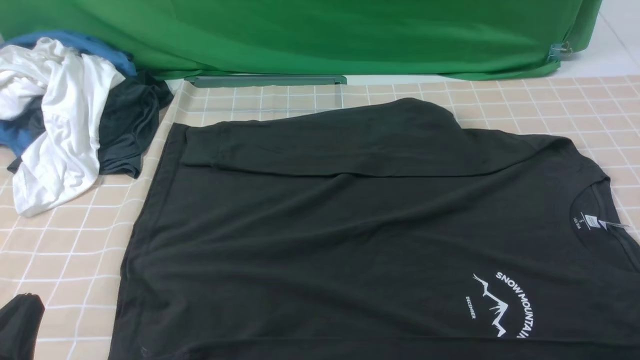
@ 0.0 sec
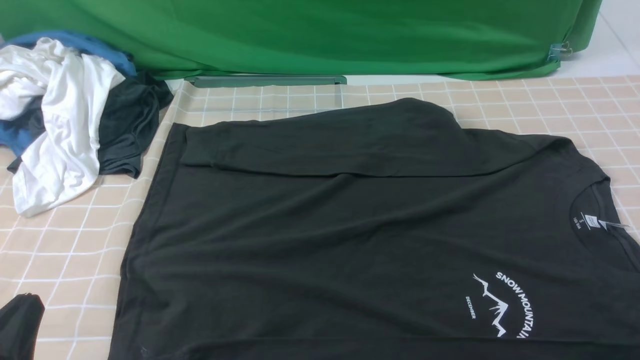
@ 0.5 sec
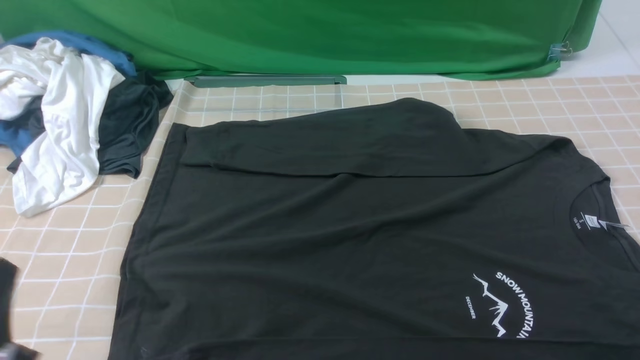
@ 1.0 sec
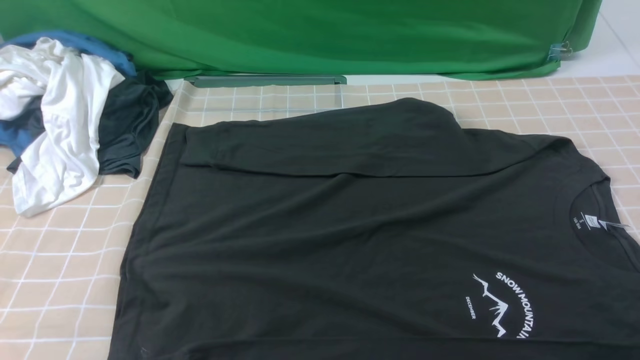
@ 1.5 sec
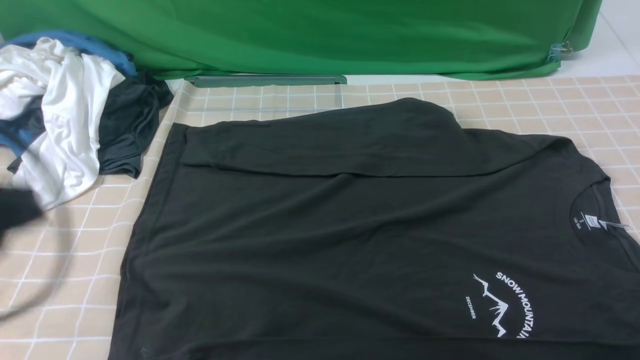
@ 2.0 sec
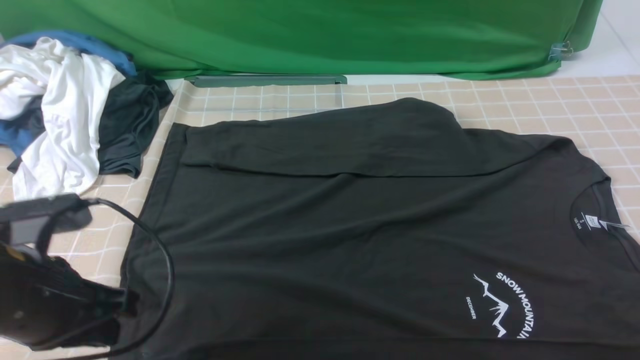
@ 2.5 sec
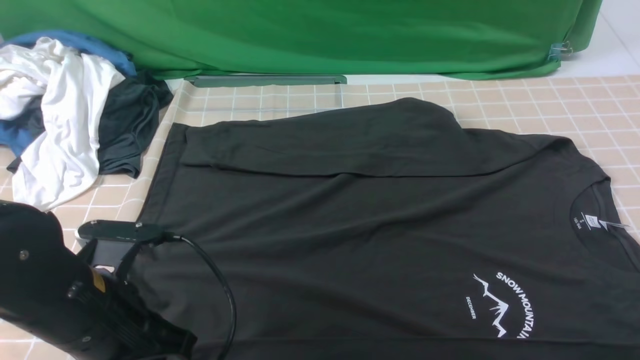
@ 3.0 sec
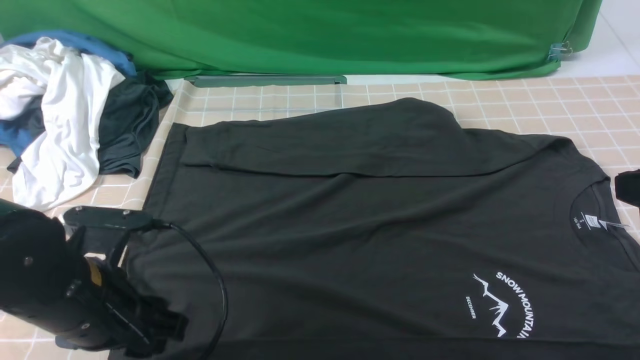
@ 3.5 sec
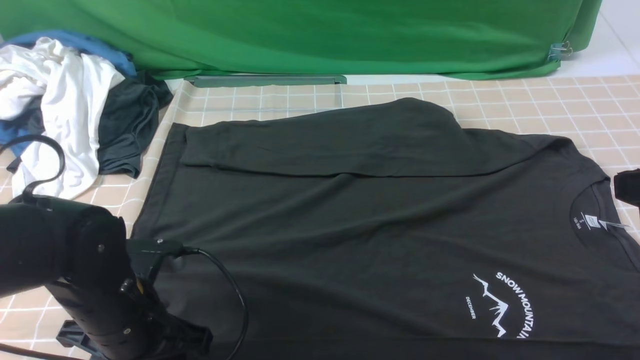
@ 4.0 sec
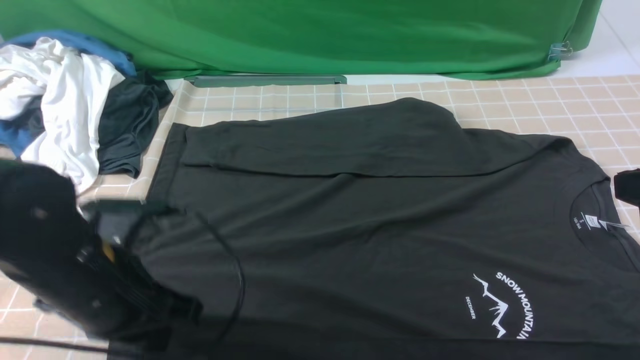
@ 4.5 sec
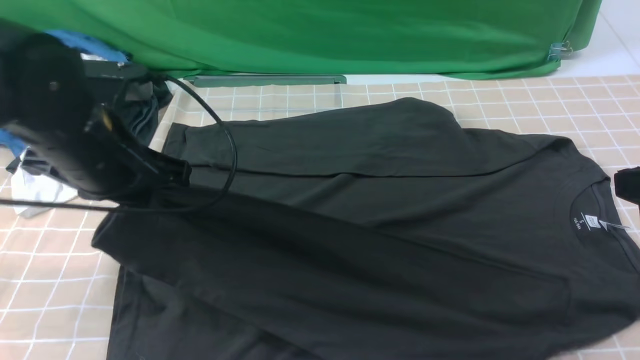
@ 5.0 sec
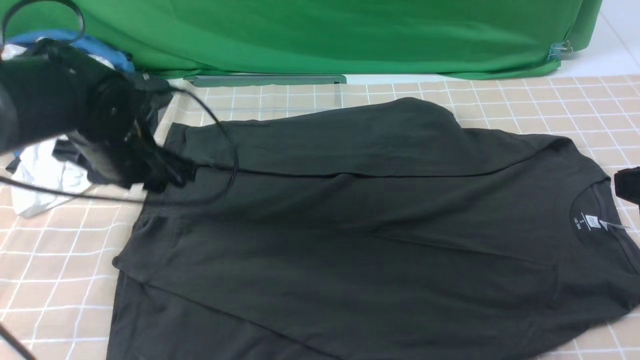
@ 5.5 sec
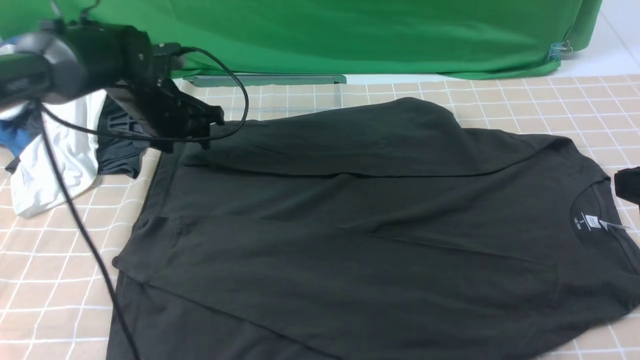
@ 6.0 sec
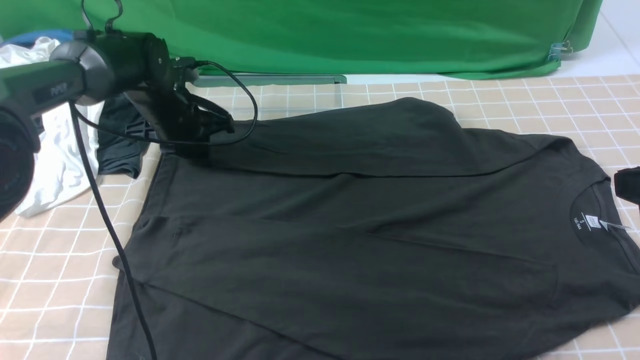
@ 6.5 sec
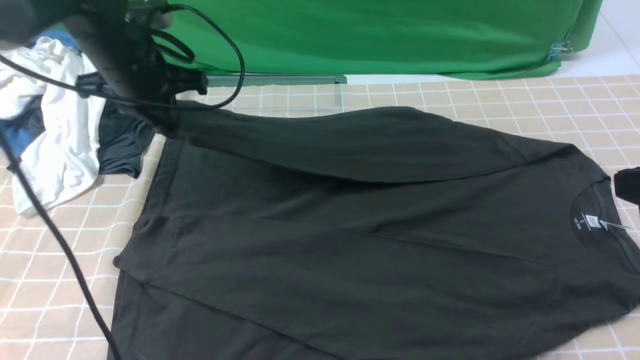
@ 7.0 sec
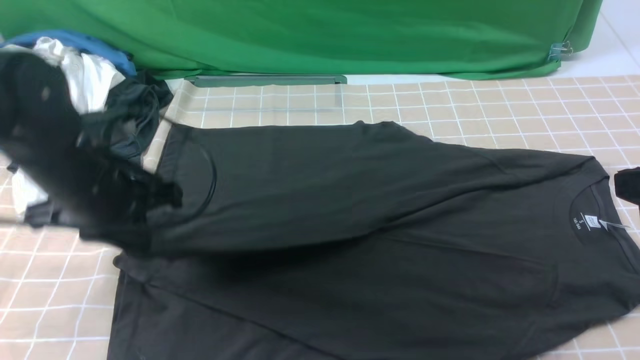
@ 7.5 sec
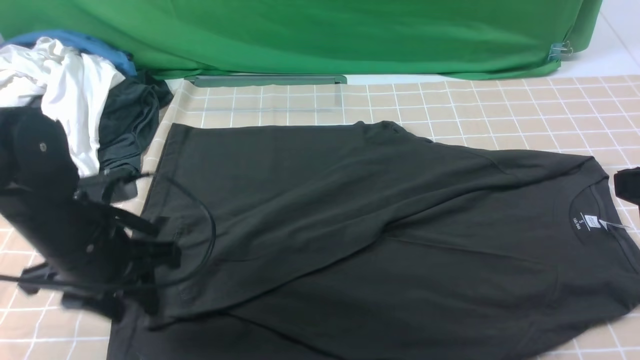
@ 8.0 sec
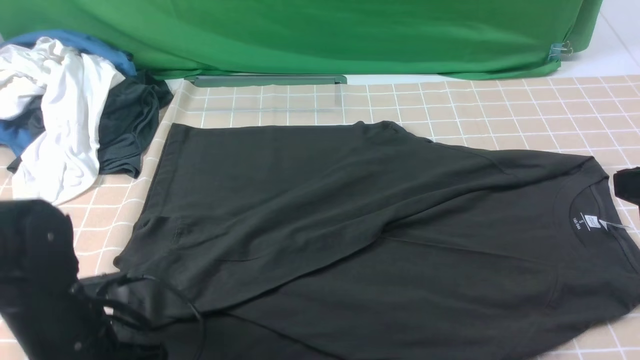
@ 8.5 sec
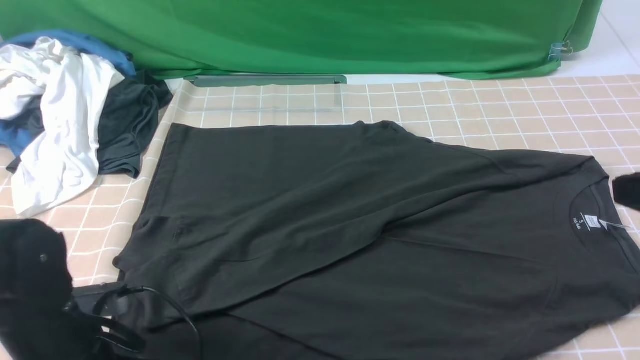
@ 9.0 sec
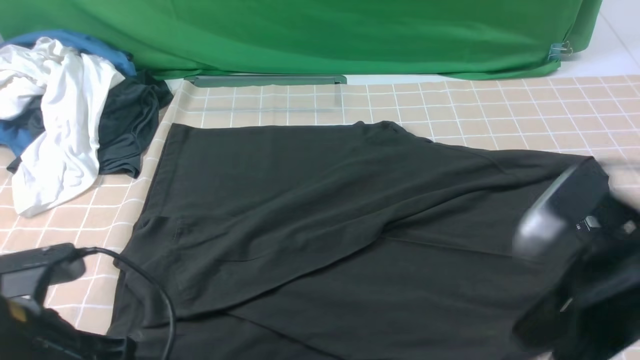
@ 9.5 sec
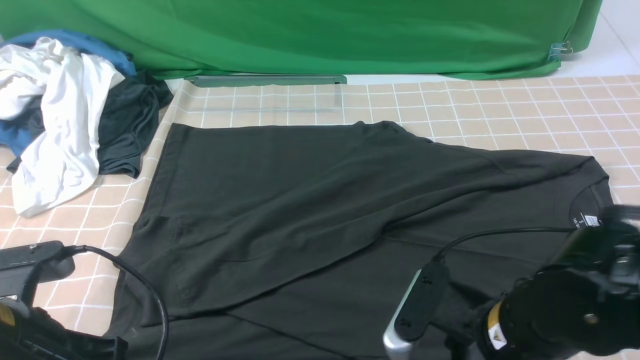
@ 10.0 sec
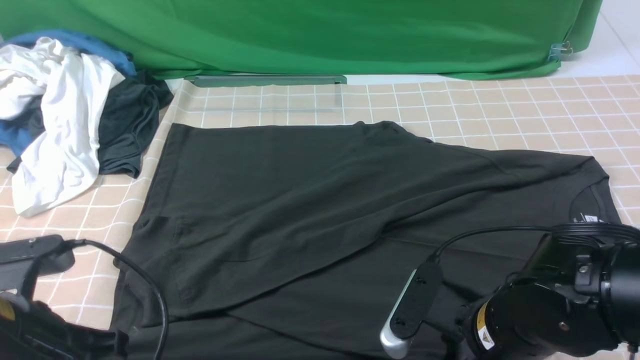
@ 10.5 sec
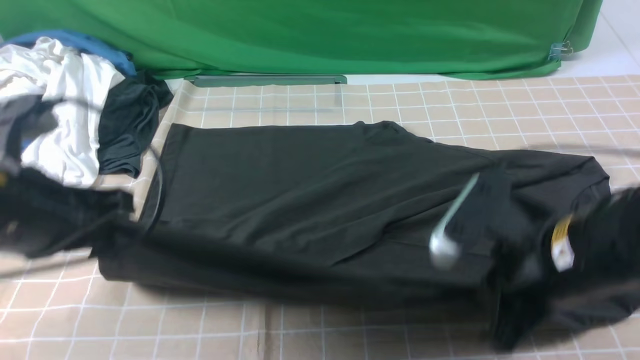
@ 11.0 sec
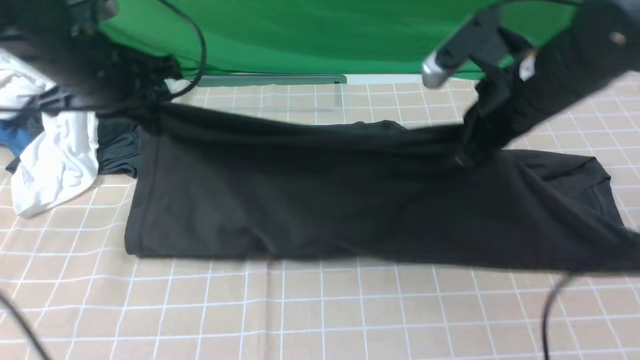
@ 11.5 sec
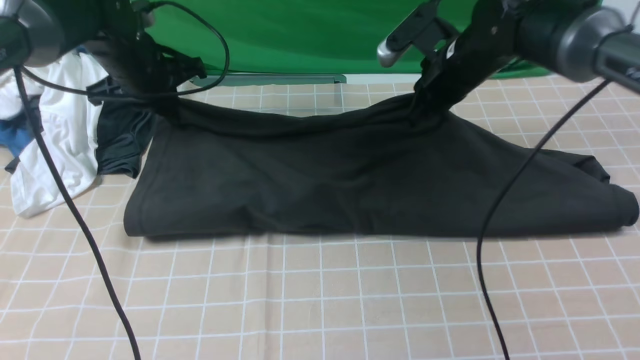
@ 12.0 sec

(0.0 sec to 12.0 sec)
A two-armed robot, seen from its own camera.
Step, 0.0 sec - 4.0 sec: use the left arm to clamp the cuff closest to it.
Step, 4.5 sec - 5.0 sec: use the left arm to drag and place the cuff at the centered position on the left edge of the fabric.
Step, 5.5 sec - 6.5 sec: use the left arm to clamp the cuff farthest from it.
Step, 7.0 sec - 8.0 sec: use the left arm to drag and drop the cuff onto the cuff closest to the left arm.
Step, 8.5 sec - 10.0 sec: use both arms simultaneously to clamp the lower edge of the clothing fabric.
0.0 sec - 2.0 sec: The left gripper heads upward and forward, covering about 15 cm.
2.0 sec - 4.0 sec: The left gripper moves downward and to the right, roughly 15 cm, and opens.
4.0 sec - 6.0 sec: The left gripper travels forward by some 25 cm, and opens.
6.0 sec - 8.0 sec: The left gripper shifts some 20 cm backward, and closes, then reopens.
8.0 sec - 10.0 sec: The left gripper is displaced backward by approximately 10 cm, and closes; the right gripper goes some 20 cm to the left and downward, and opens.
10.0 sec - 12.0 sec: Both grippers move forward, roughly 30 cm. The right gripper closes up.

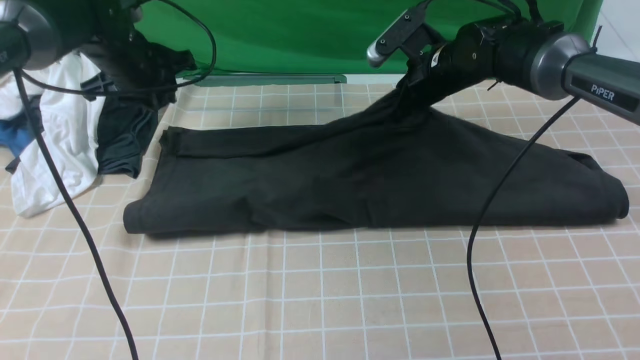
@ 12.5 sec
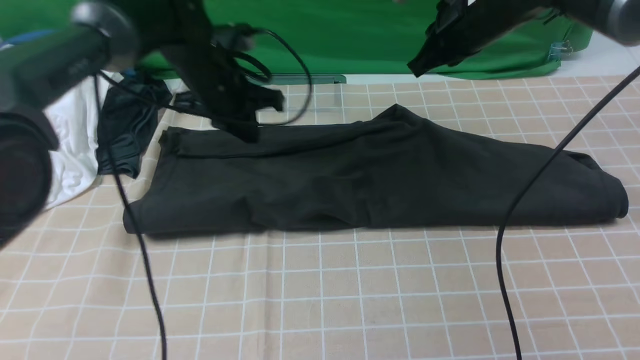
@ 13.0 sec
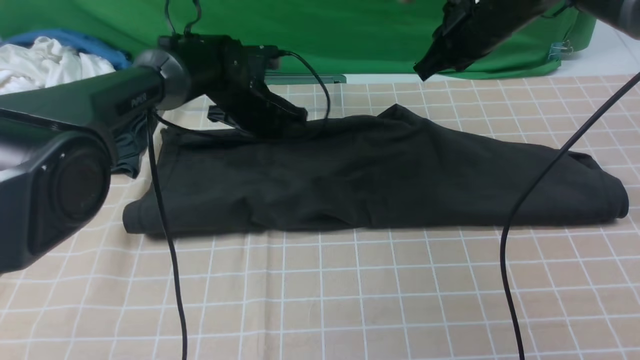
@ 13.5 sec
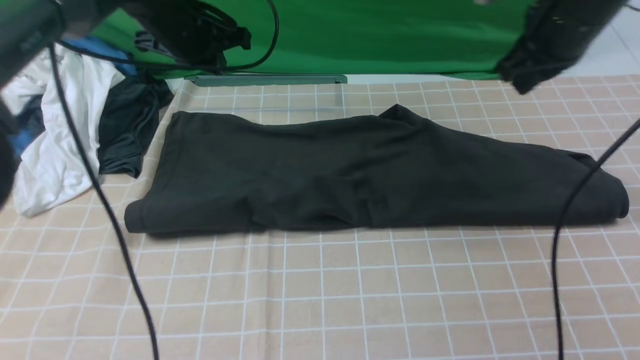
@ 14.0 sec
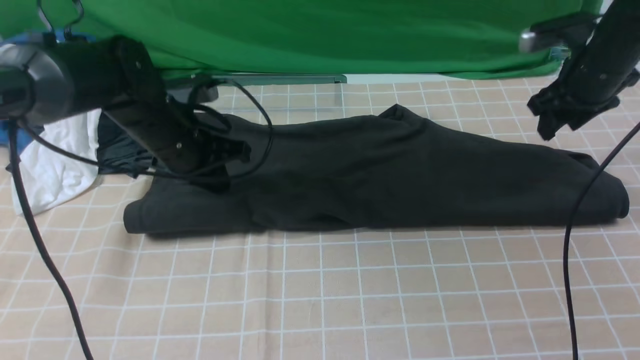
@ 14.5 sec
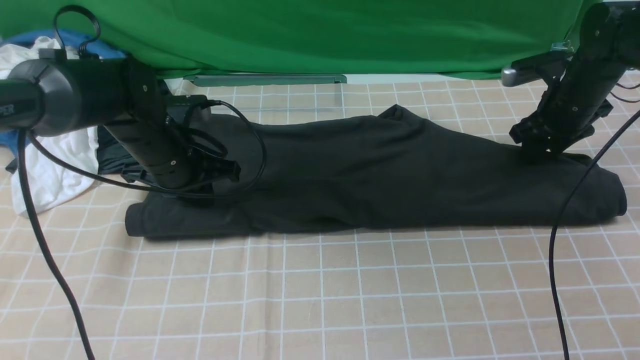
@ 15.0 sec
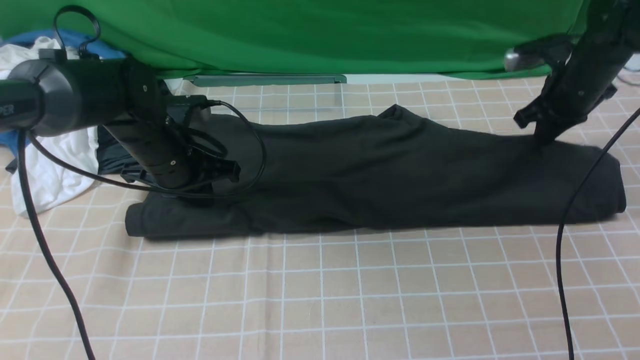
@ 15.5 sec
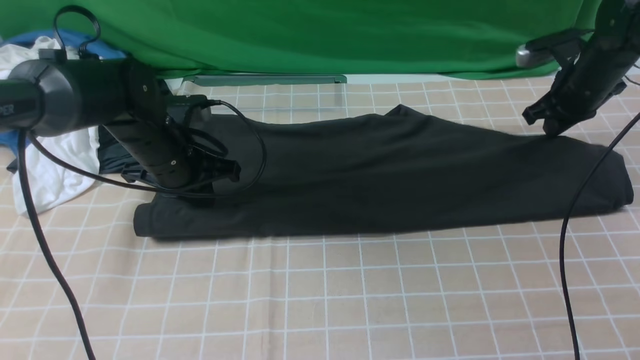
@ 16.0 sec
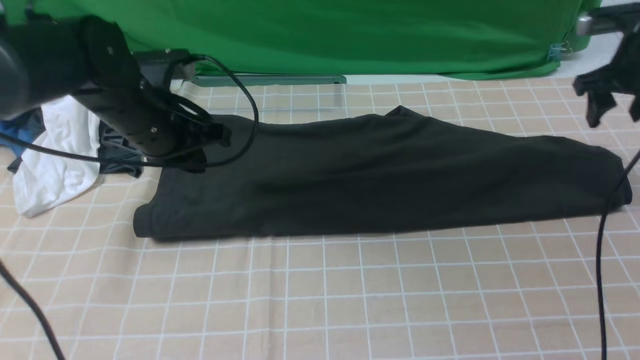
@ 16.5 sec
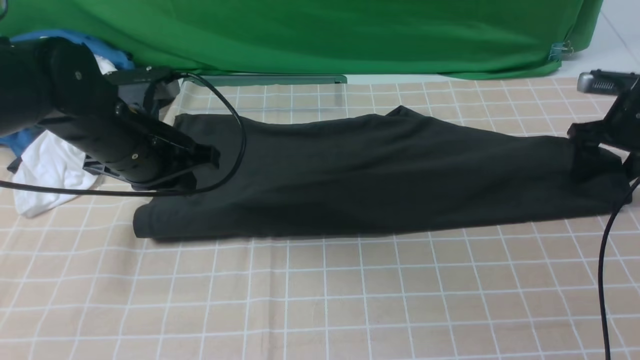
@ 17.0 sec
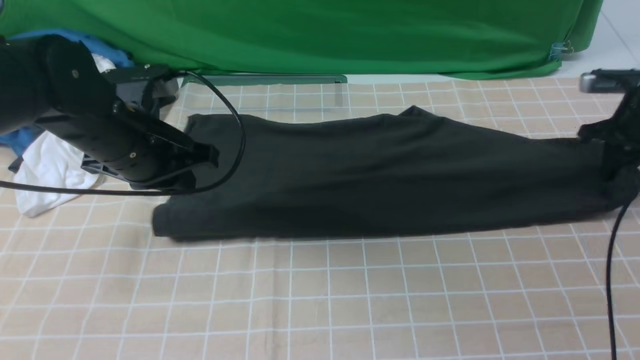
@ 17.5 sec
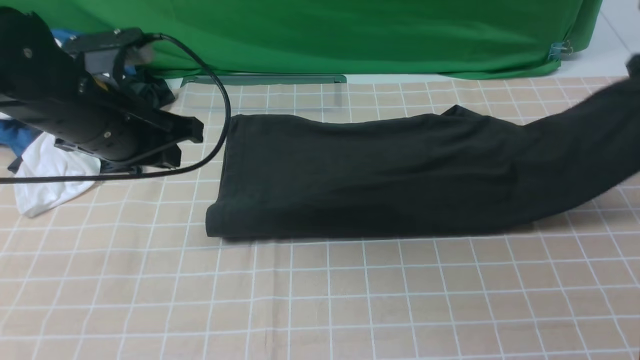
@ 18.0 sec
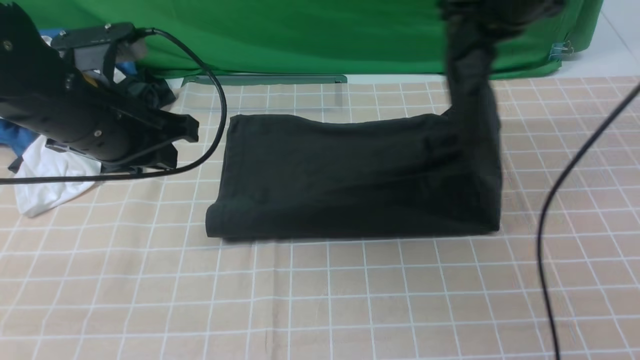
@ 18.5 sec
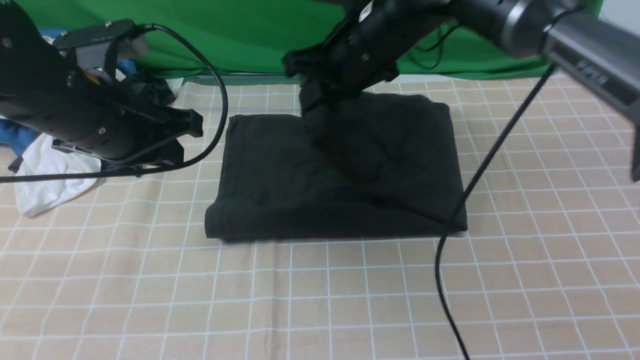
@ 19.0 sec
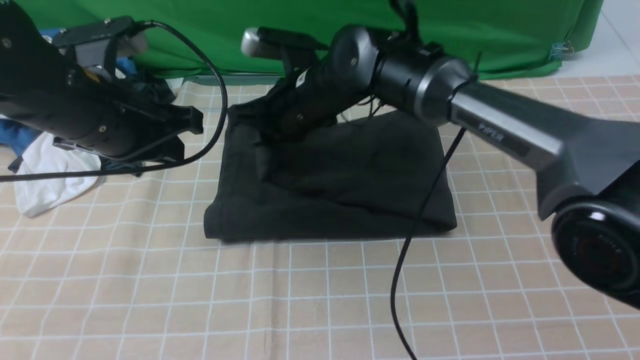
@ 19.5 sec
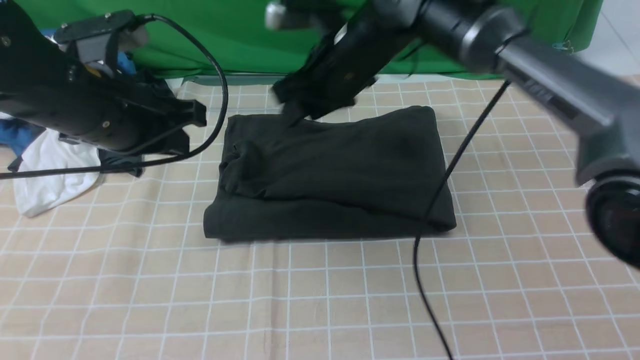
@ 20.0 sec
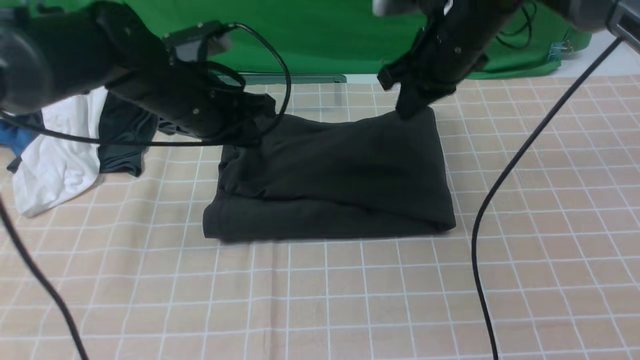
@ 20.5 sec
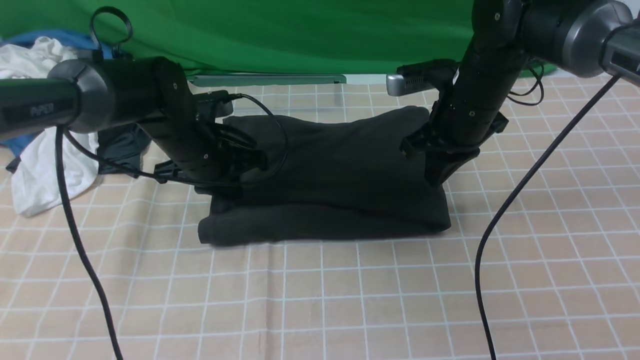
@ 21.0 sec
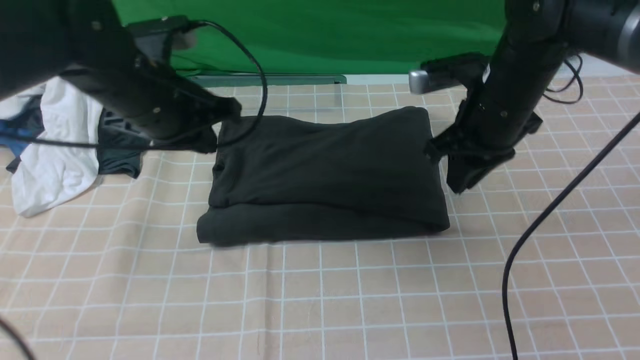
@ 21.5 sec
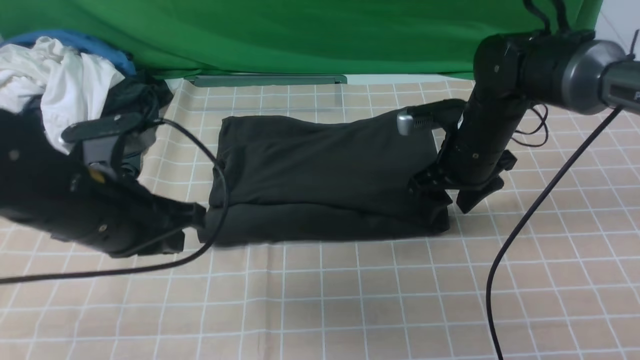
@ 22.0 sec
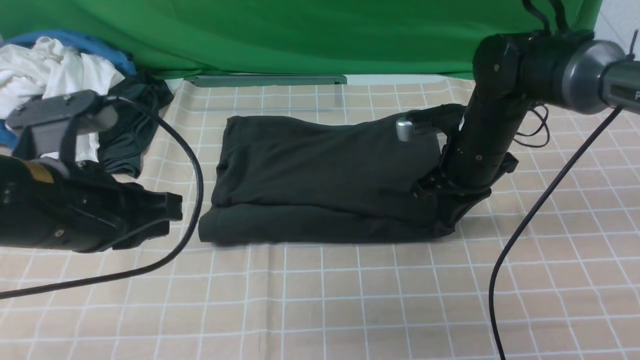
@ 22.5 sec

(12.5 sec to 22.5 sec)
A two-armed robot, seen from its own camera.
Step, 13.0 sec - 17.0 sec: use the right arm to clamp the right edge of the fabric.
Step, 17.5 sec - 19.5 sec: use the right arm to drag the right edge of the fabric to the left and folds it over the left edge.
12.5 sec - 14.5 sec: The right gripper travels to the right by about 15 cm, and opens its fingers; the left gripper moves backward and to the right, some 10 cm, and closes.
14.5 sec - 16.5 sec: The right gripper moves to the right, roughly 5 cm, and closes, then reopens.
16.5 sec - 18.5 sec: The left gripper heads upward and backward, covering roughly 10 cm. Meanwhile the right gripper heads to the left and upward, covering about 25 cm, and closes.
18.5 sec - 20.5 sec: The right gripper is displaced downward by roughly 5 cm, goes to the left and returns, roughly 20 cm each way, and opens, then closes once more. The left gripper shifts approximately 10 cm forward and downward.
20.5 sec - 22.5 sec: The left gripper travels backward by roughly 20 cm, while the right gripper travels downward and backward by approximately 10 cm, and opens and closes again.
